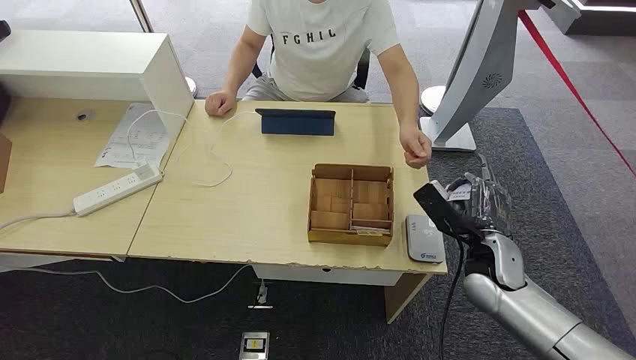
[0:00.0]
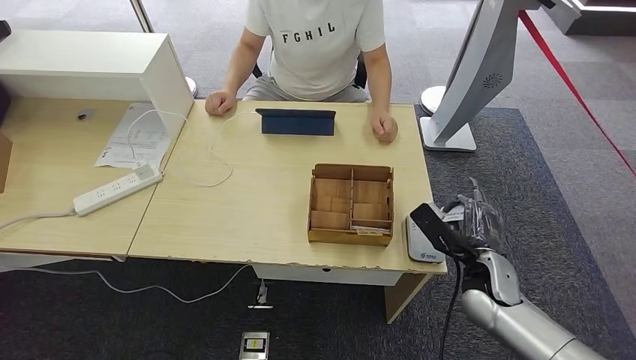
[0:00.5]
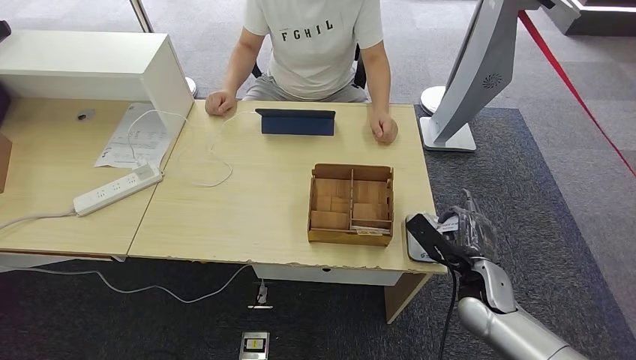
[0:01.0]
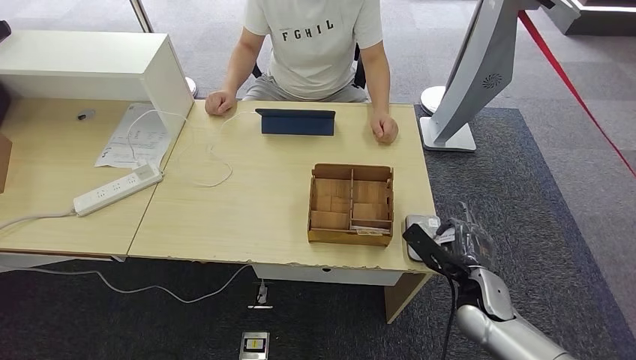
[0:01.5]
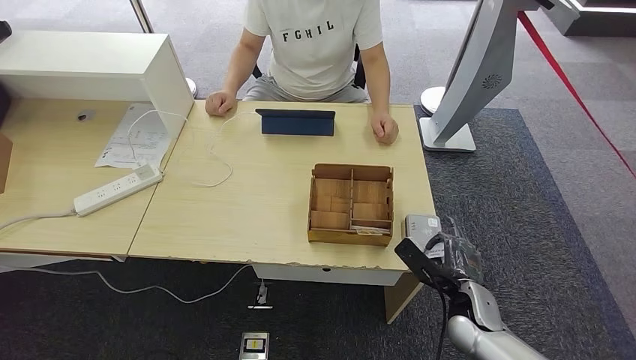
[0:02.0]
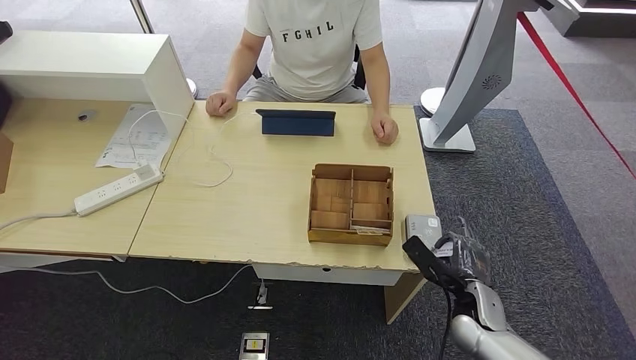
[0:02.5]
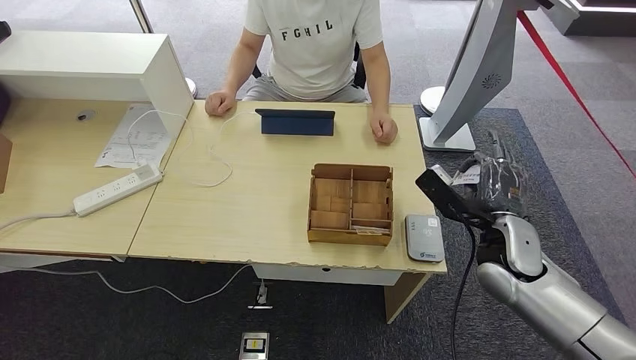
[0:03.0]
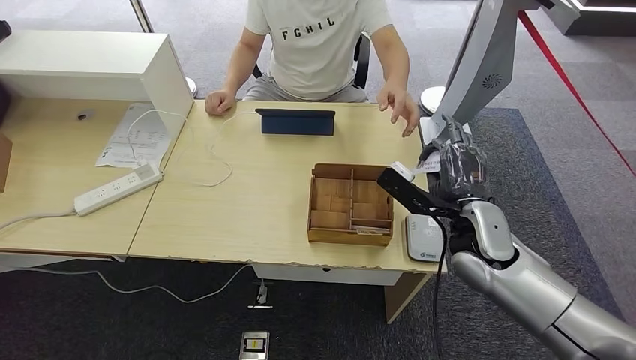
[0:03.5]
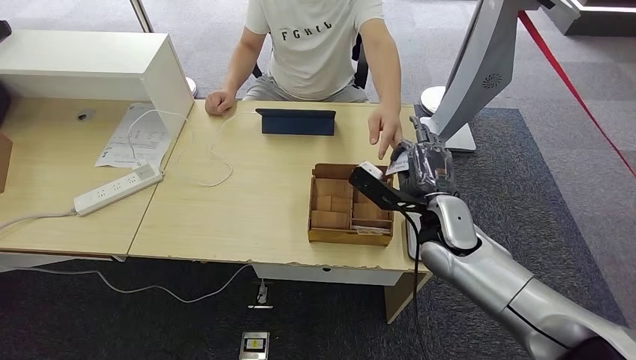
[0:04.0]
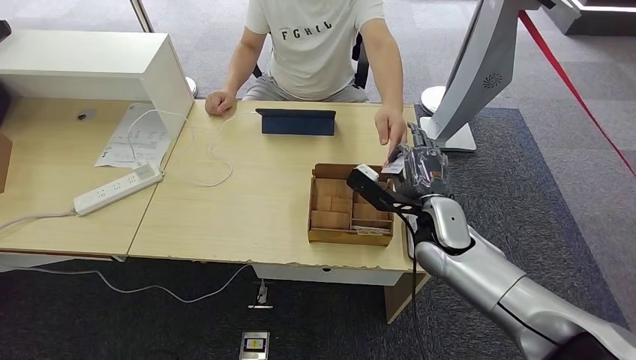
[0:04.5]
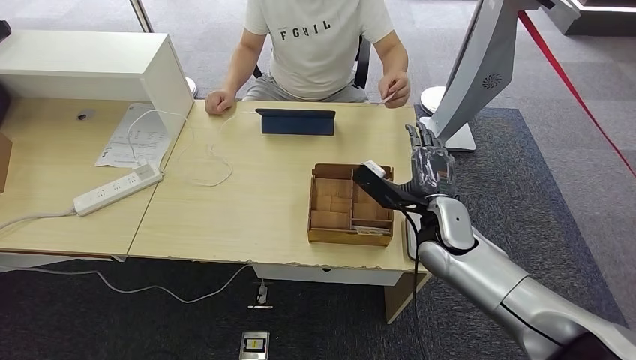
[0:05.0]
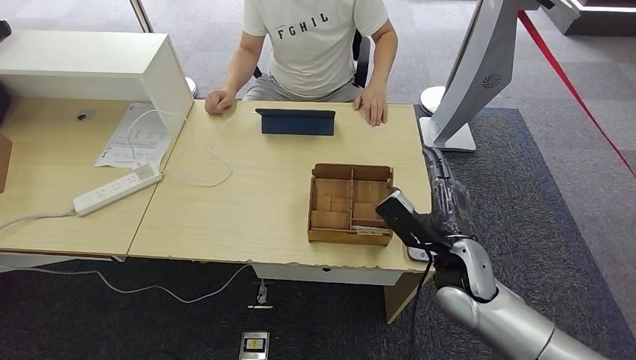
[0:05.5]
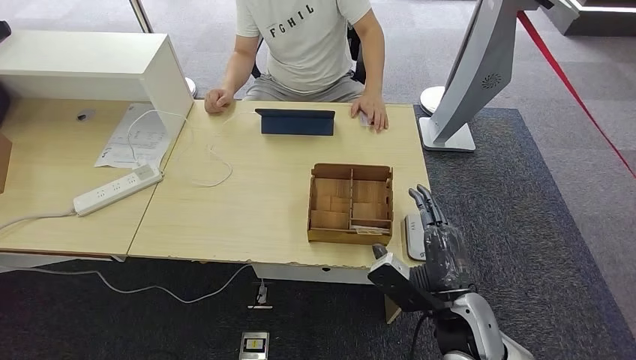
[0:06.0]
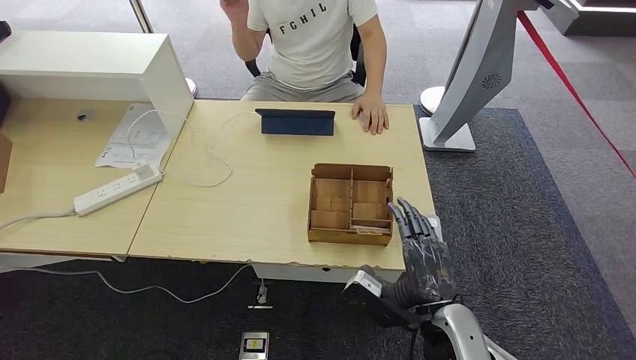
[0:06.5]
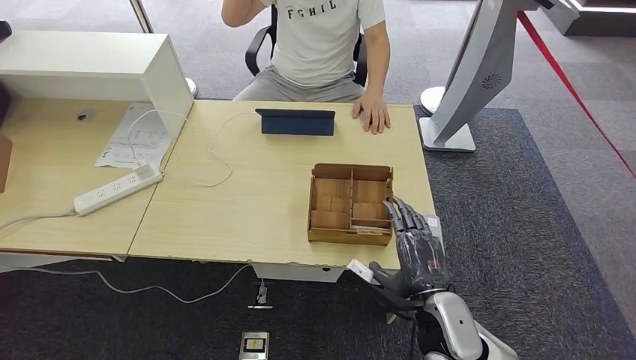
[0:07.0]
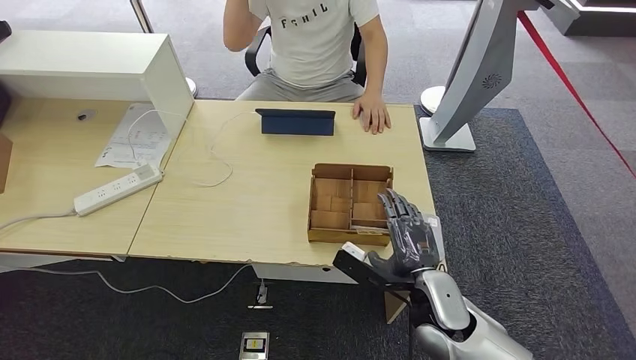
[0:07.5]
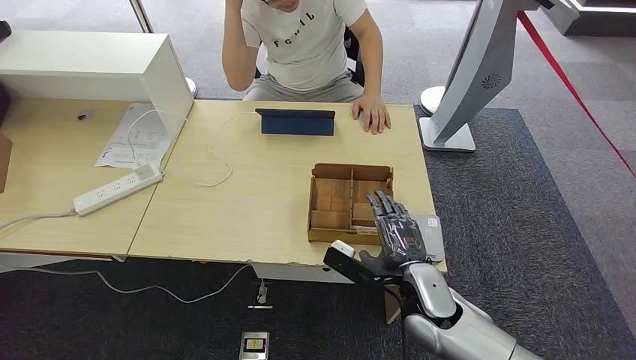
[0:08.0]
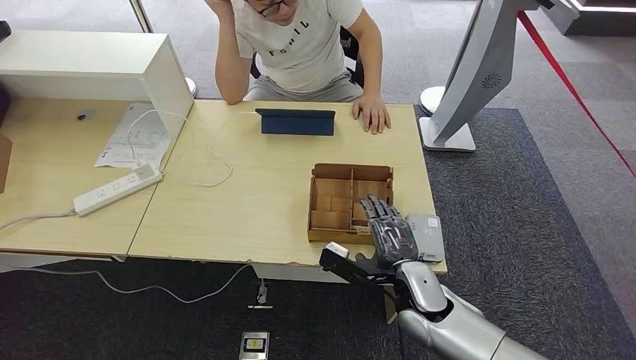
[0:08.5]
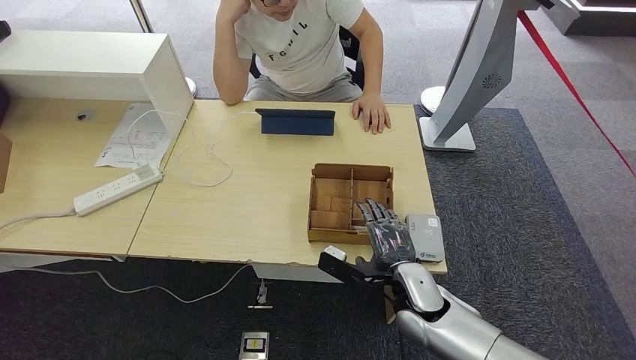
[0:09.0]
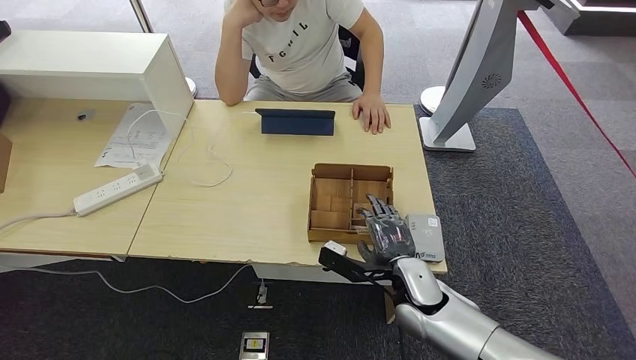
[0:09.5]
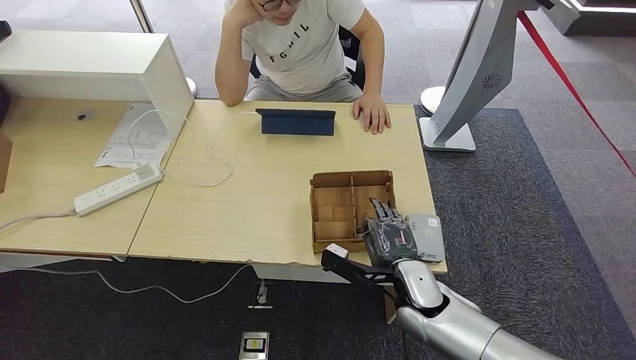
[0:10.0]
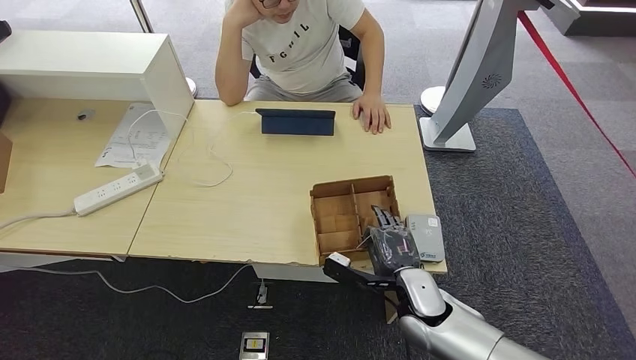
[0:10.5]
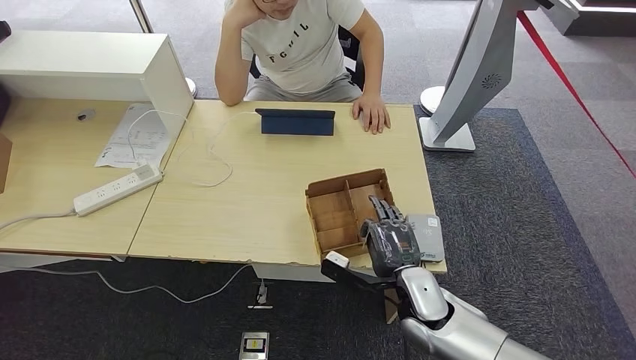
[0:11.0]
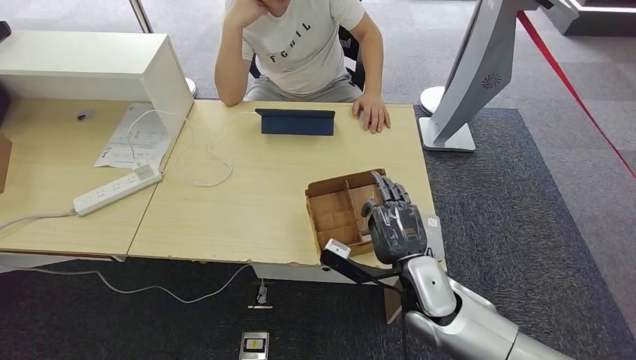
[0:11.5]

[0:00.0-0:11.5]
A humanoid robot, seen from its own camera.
Step, 0:00.0 to 0:00.5: Take the ID card from the person's hand.
Step, 0:01.0 to 0:03.0: Place the ID card on the card reader.
Step, 0:03.5 to 0:07.0: Hand the ID card to the person.
0:02.0 to 0:04.0: The right hand travels upward, forward and to the left by some 20 cm.
0:04.0 to 0:06.0: The right hand goes some 15 cm backward and downward.
0:06.0 to 0:07.5: The right hand changes place by roughly 5 cm.
0:07.5 to 0:11.5: There are only small adjustments of the hands.

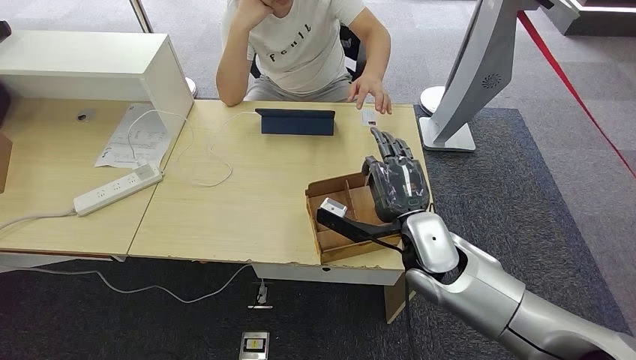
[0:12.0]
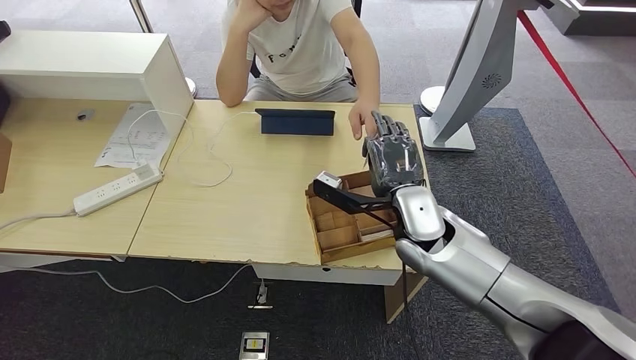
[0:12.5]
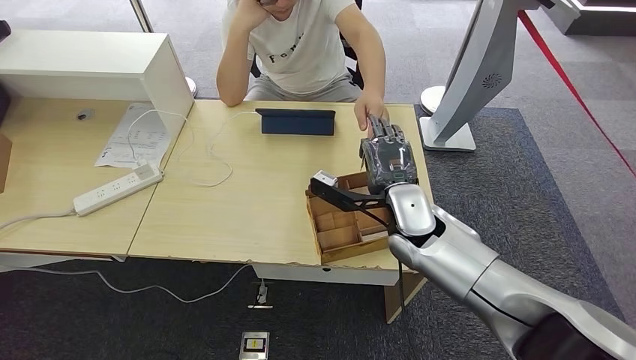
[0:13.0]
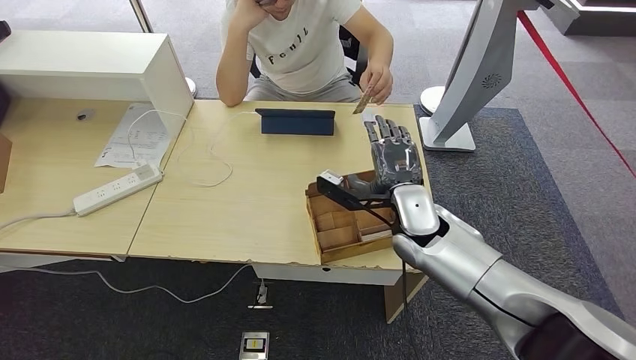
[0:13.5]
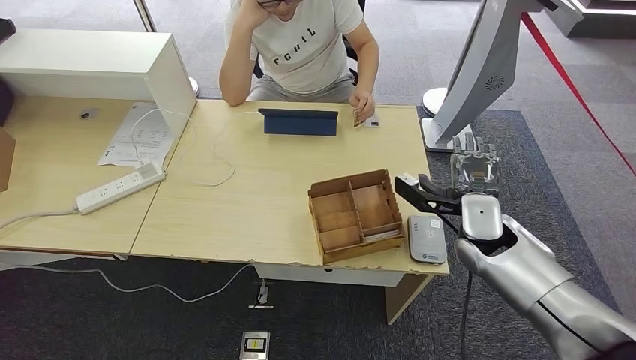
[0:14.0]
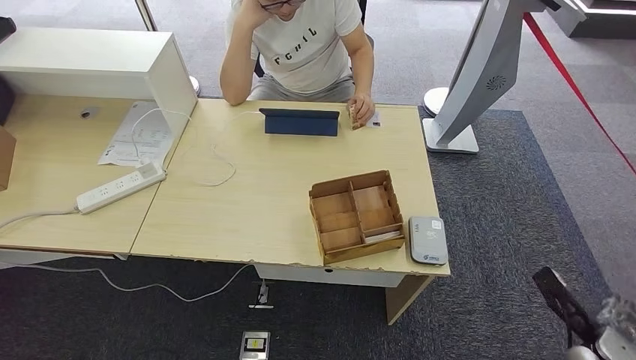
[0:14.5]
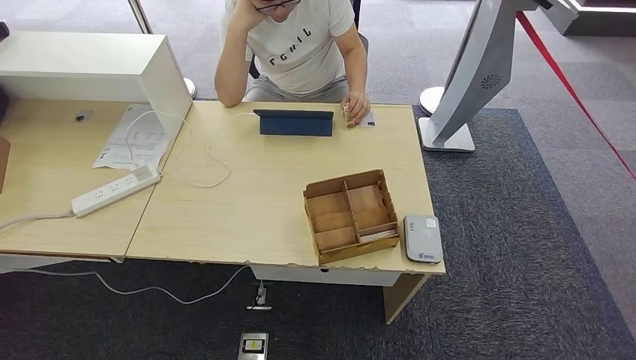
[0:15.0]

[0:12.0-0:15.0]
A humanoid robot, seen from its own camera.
Step, 0:12.5 to 0:15.0: Hand the room key to the person.
0:12.0 to 0:13.5: The hands make only small movements.
0:13.5 to 0:15.0: The right hand goes about 50 cm backward, downward and to the right.
